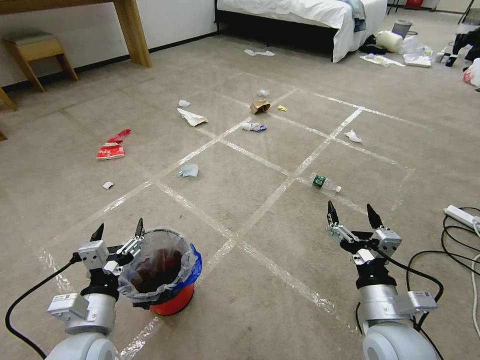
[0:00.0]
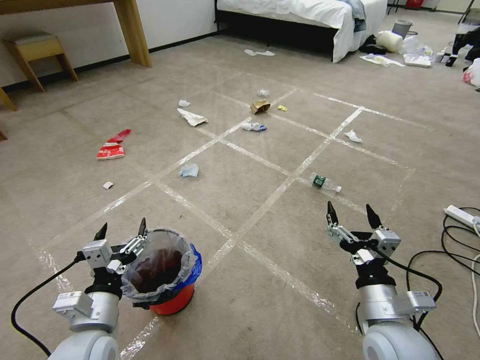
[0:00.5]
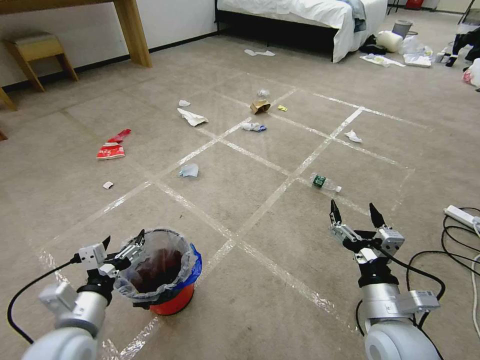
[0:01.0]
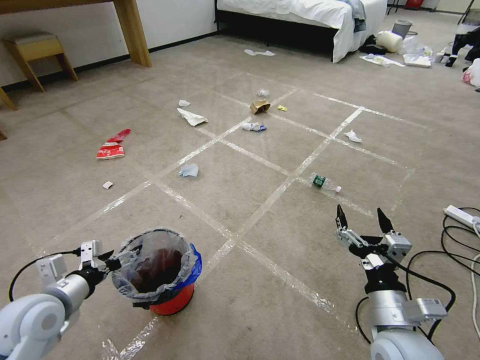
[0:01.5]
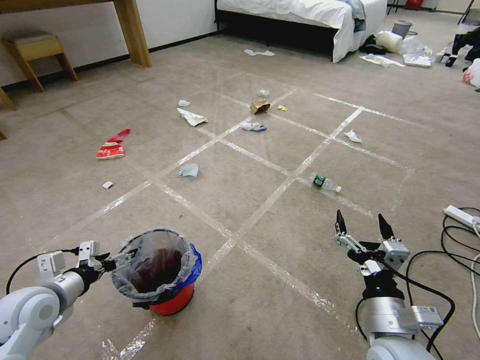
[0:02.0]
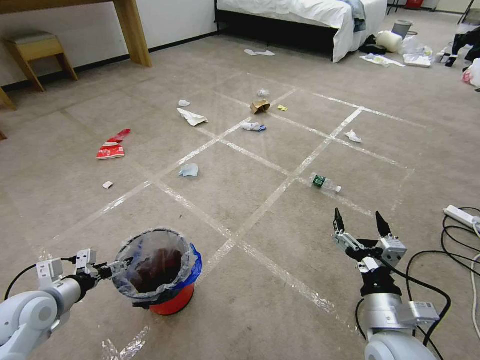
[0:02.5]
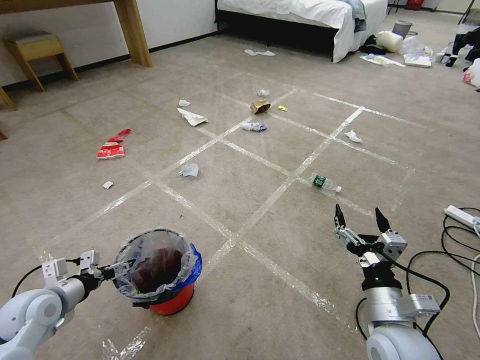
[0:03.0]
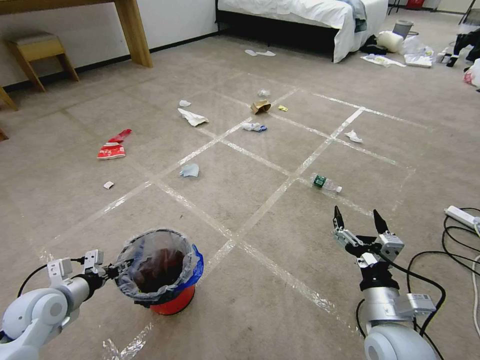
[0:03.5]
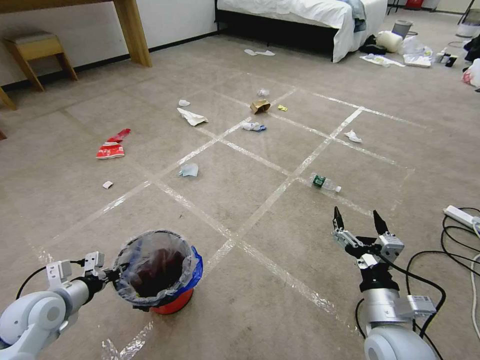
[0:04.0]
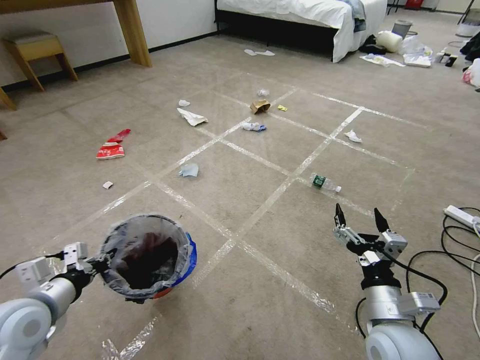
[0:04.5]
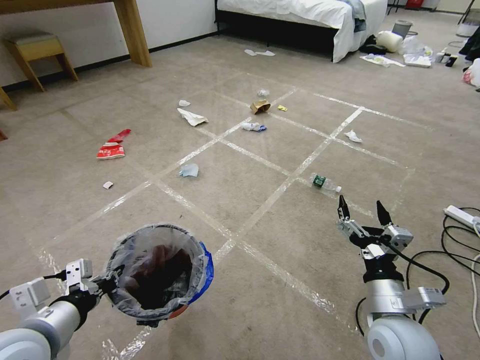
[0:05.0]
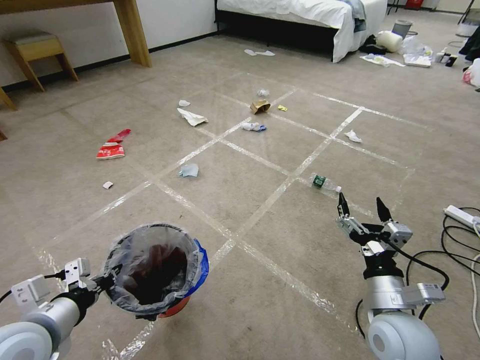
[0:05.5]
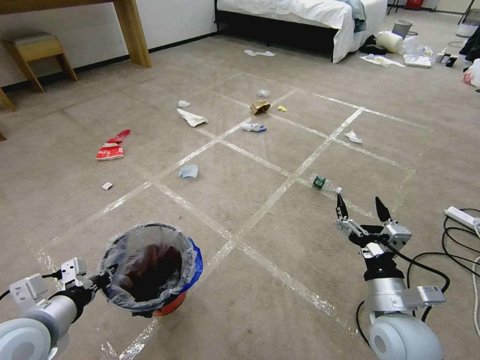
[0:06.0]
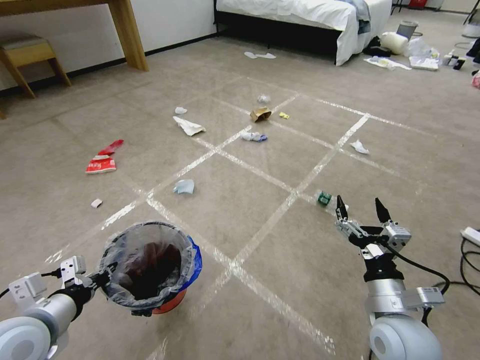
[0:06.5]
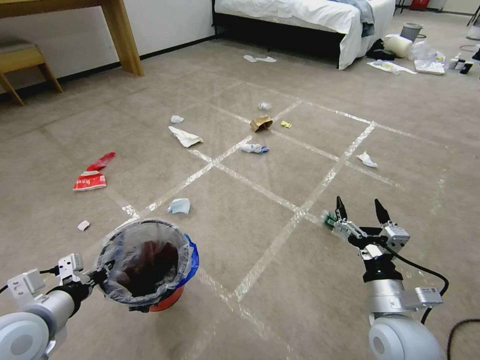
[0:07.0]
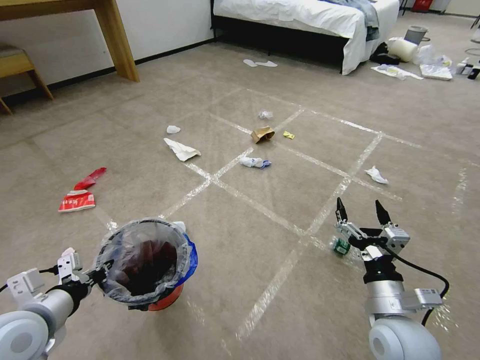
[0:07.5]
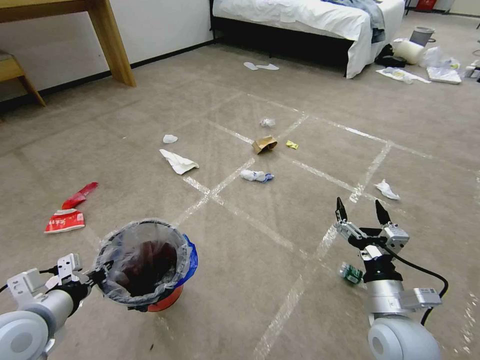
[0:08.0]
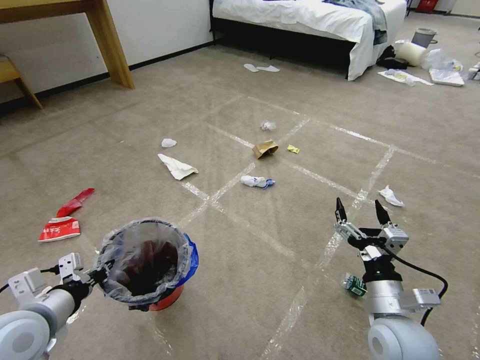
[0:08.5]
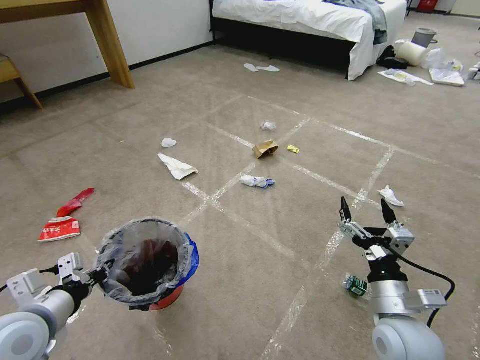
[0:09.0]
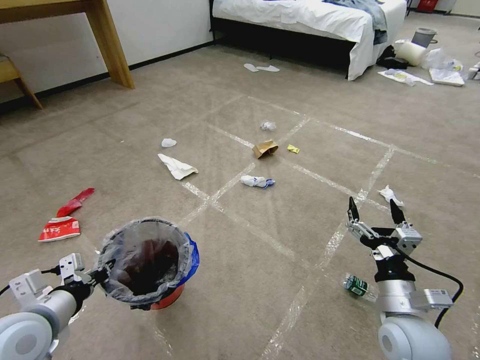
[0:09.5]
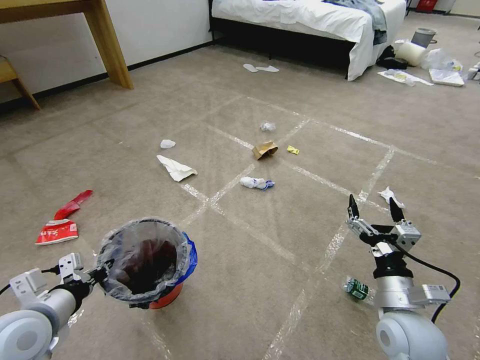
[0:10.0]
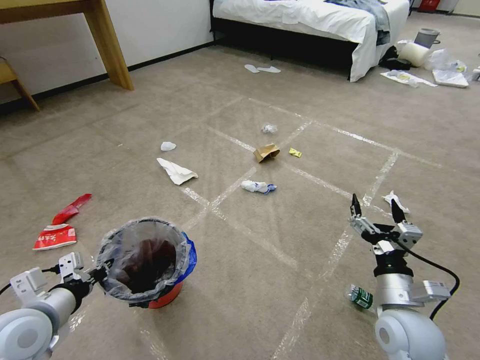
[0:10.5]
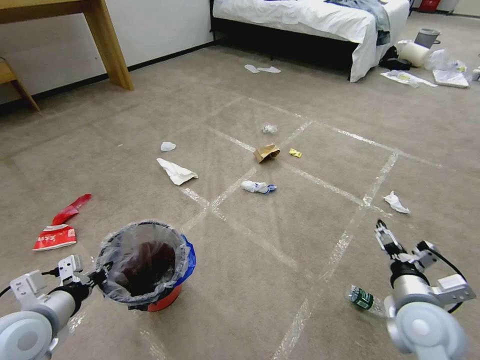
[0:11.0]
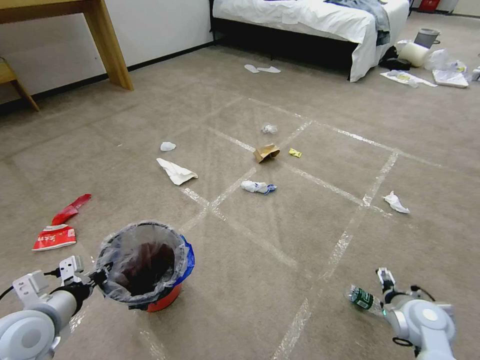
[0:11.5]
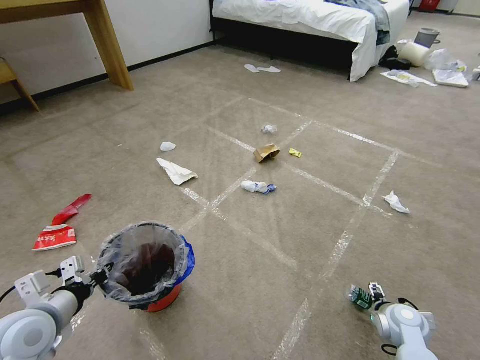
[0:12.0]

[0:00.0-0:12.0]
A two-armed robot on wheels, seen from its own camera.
Task of the whole recording: Pick up the trash bin and place the garbage on the floor into it.
0:02.0 to 0:04.0: The left gripper closes.
0:04.0 to 0:06.0: The left gripper heads upward, backward and to the right, covering some 15 cm.
0:08.0 to 0:10.0: The grippers make only small movements.
0:10.0 to 0:12.0: The right gripper moves downward and to the right, some 20 cm.

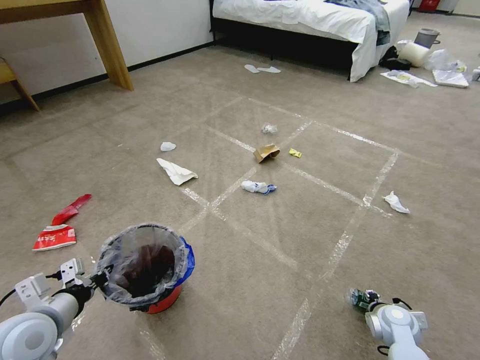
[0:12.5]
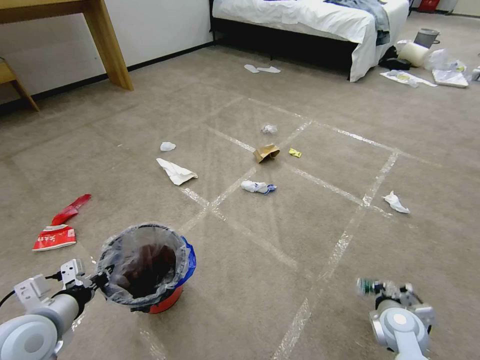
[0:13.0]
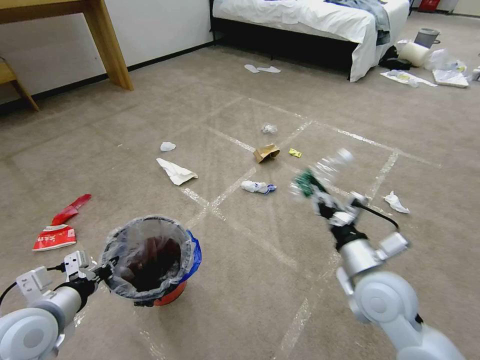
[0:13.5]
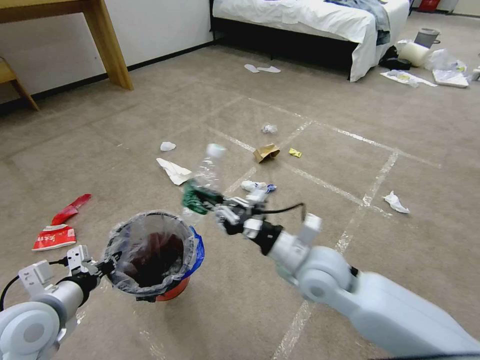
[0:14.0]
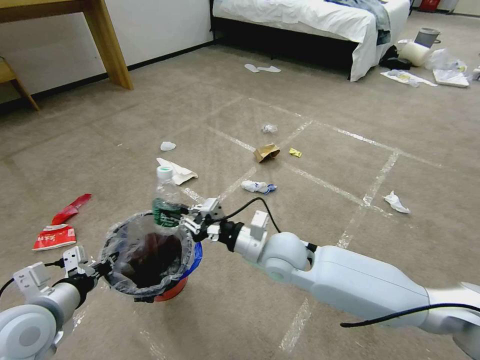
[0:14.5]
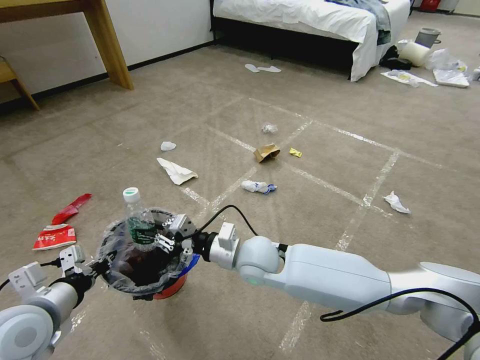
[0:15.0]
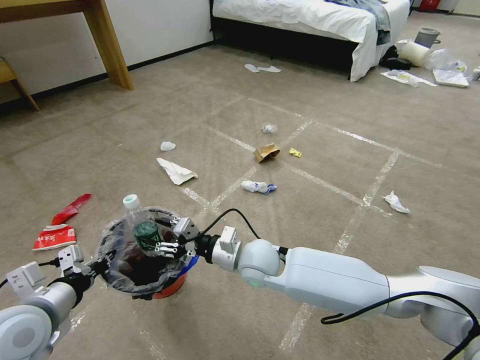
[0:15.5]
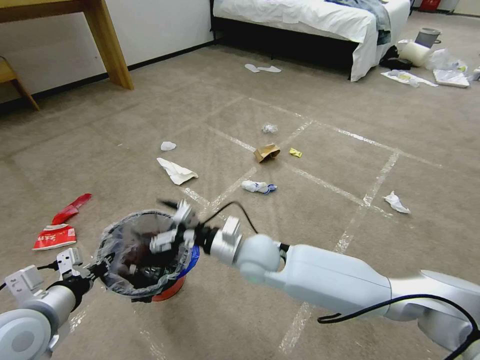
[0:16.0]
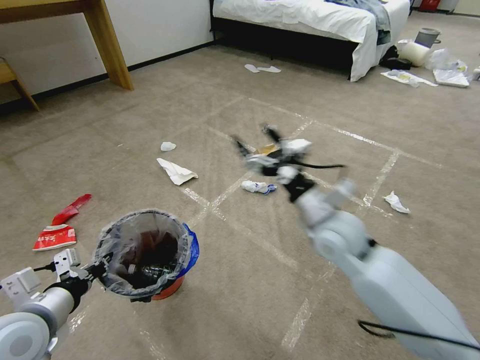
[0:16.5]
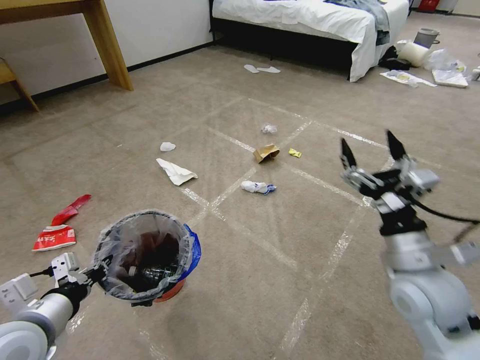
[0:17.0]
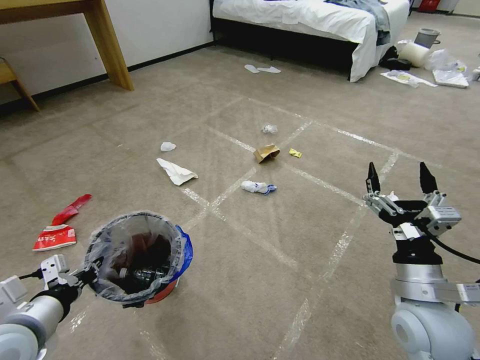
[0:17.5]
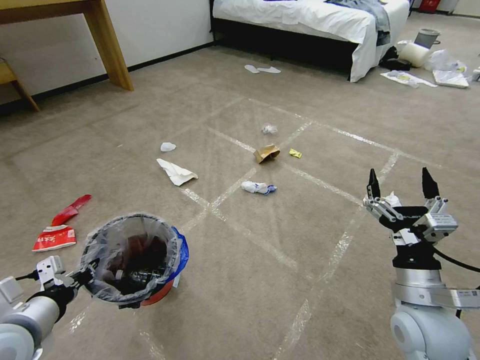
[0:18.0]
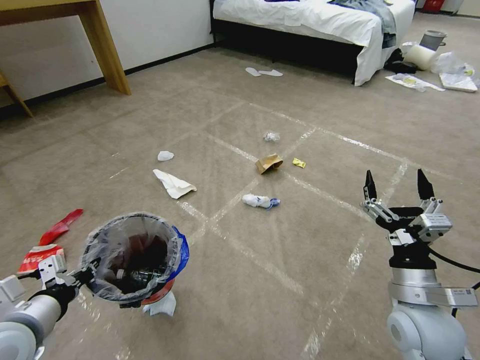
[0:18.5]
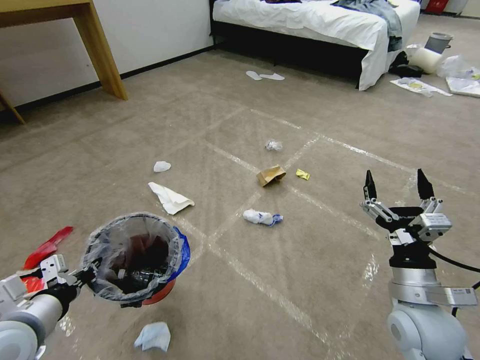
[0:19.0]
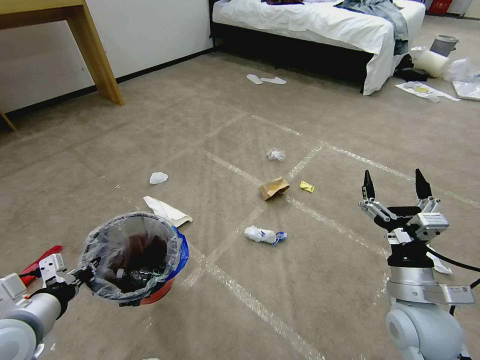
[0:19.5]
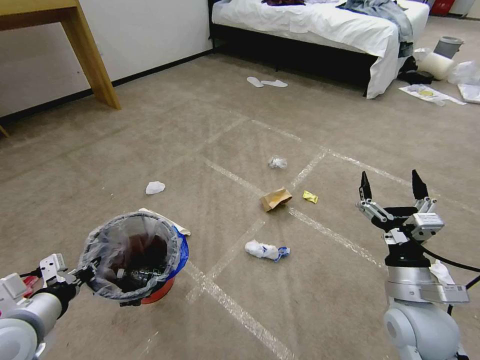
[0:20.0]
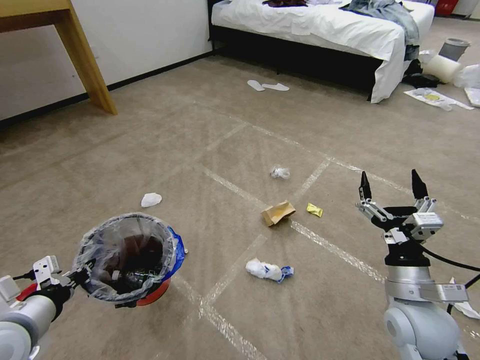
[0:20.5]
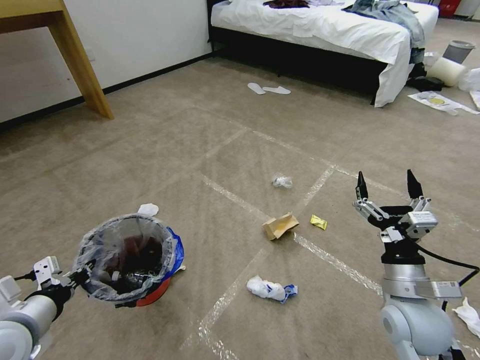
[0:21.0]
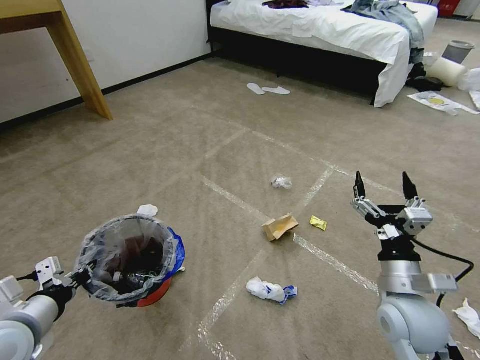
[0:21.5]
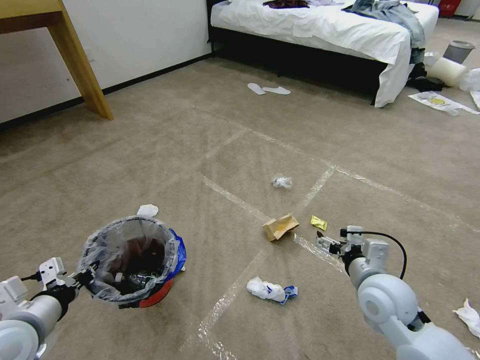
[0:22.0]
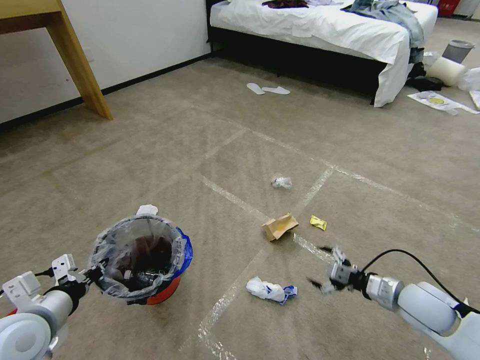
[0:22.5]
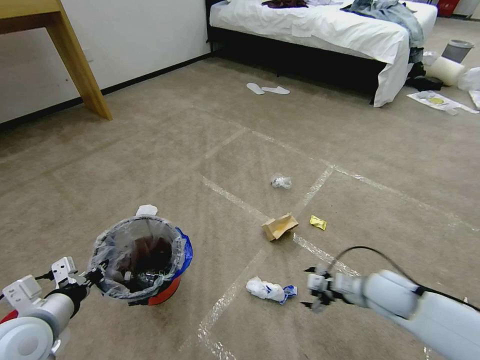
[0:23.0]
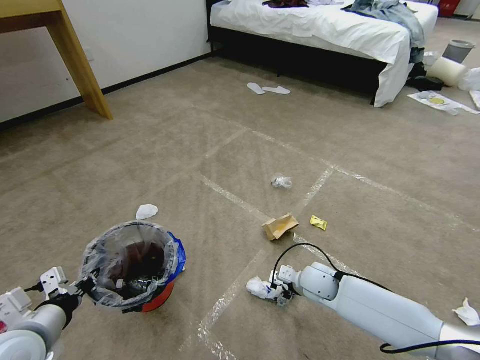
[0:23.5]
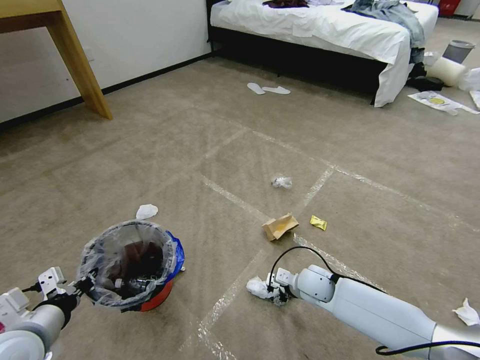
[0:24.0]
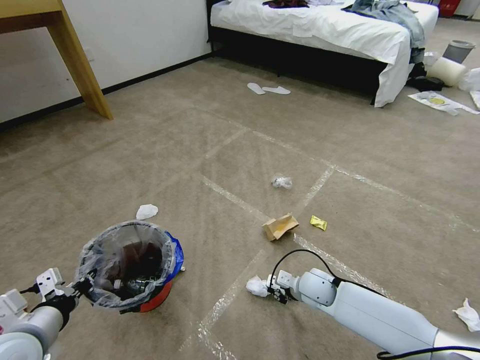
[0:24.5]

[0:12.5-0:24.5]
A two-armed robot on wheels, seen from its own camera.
Task of the whole recording: Pick up the trash bin and place the garbage on the floor into it.
0:12.5 to 0:14.5: The right gripper goes roughly 35 cm to the left and upward, and closes up.
0:14.5 to 0:16.5: The right gripper heads to the right and upward, covering approximately 10 cm, and opens.
0:16.5 to 0:18.5: The right gripper moves backward and to the right, roughly 20 cm.
0:20.5 to 0:22.5: The right gripper moves to the right, downward and forward, approximately 10 cm.
0:22.5 to 0:24.5: The right gripper moves to the left, downward and forward, approximately 20 cm, and closes its fingers.

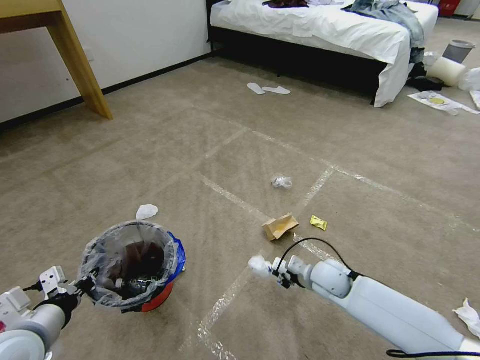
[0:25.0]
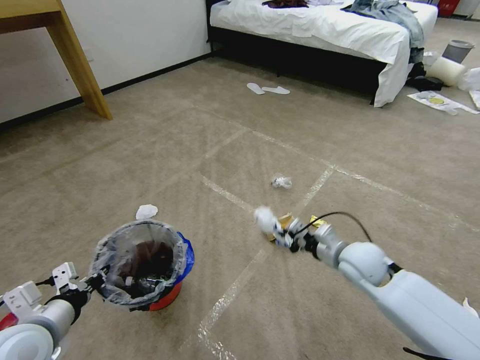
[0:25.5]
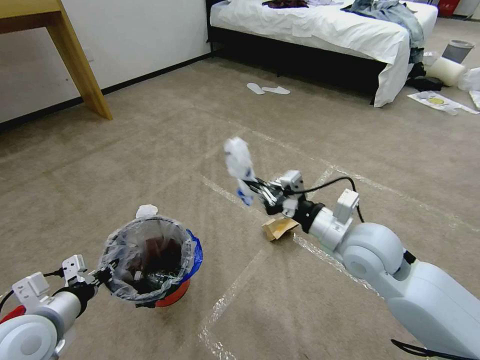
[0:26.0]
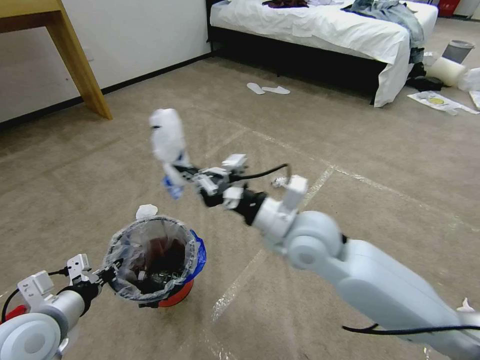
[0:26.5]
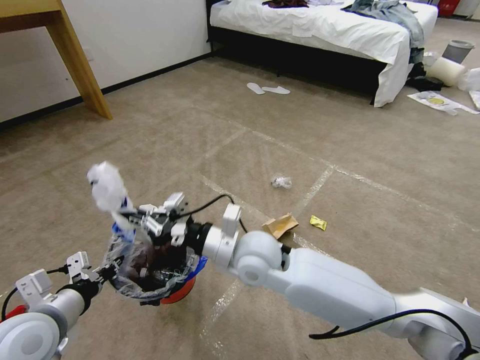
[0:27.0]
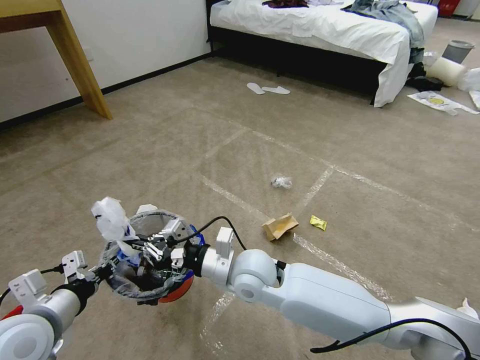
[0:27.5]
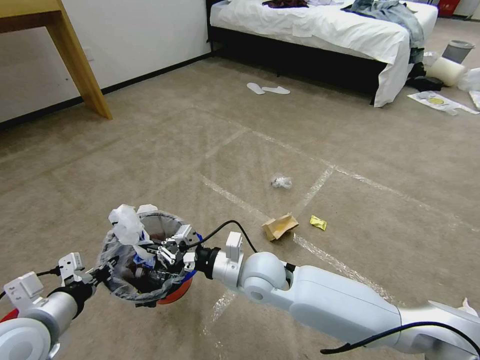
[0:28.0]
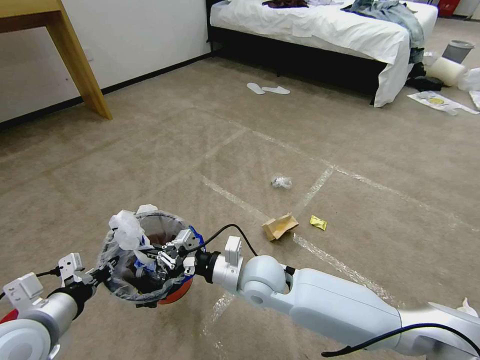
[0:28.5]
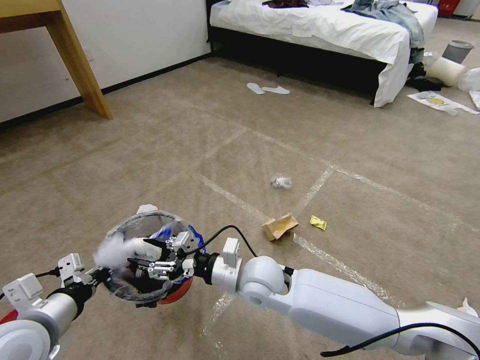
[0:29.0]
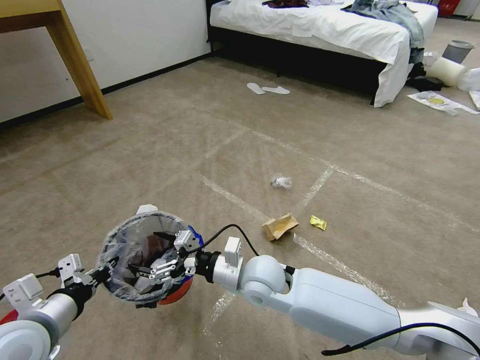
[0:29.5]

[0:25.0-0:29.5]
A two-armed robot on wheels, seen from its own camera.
Task of the whole recording: Pick up the trash bin and place the garbage on the floor into it.
0:25.0 to 0:27.0: The right gripper travels to the left and upward by about 30 cm.
0:27.0 to 0:29.5: The right gripper shifts some 5 cm downward, and opens up.
